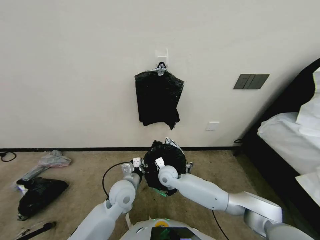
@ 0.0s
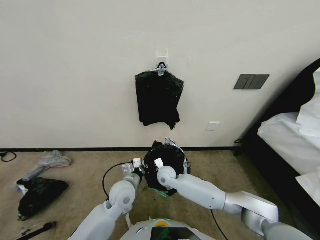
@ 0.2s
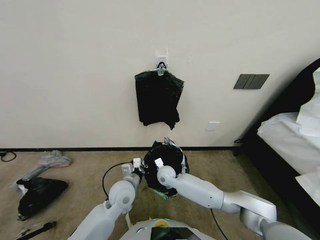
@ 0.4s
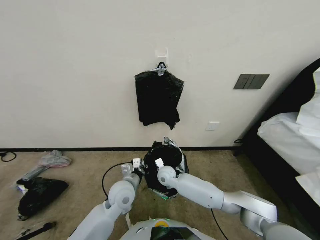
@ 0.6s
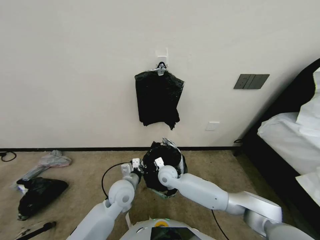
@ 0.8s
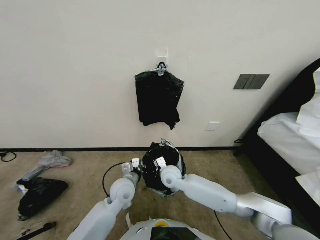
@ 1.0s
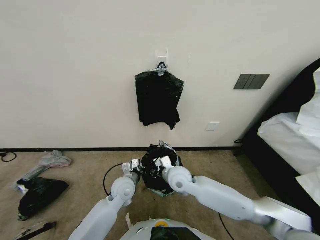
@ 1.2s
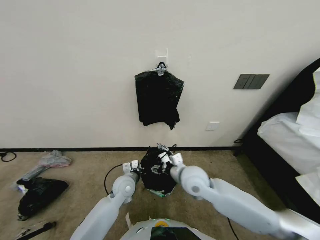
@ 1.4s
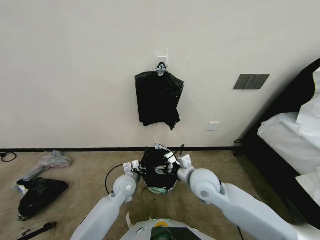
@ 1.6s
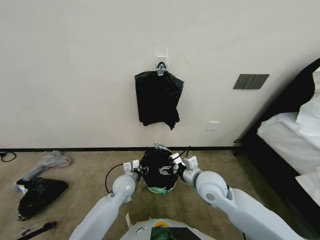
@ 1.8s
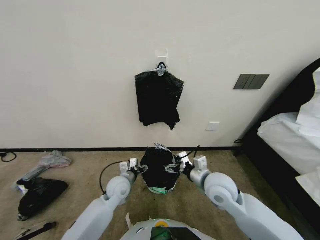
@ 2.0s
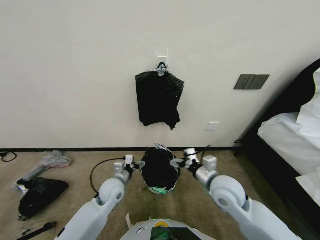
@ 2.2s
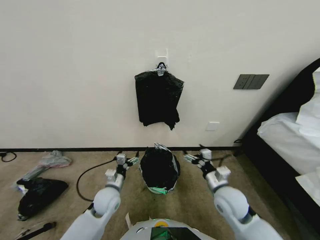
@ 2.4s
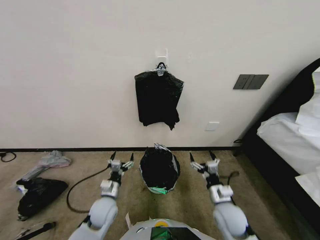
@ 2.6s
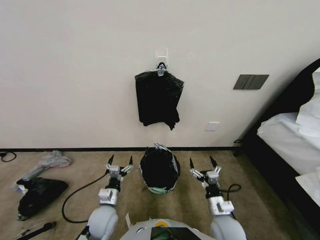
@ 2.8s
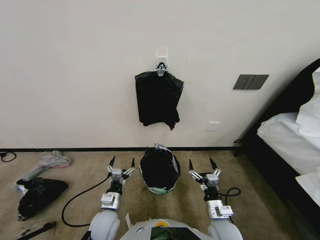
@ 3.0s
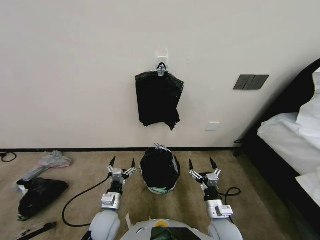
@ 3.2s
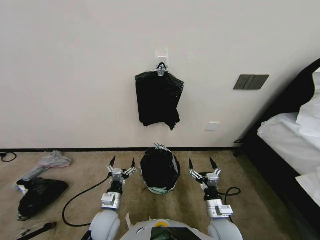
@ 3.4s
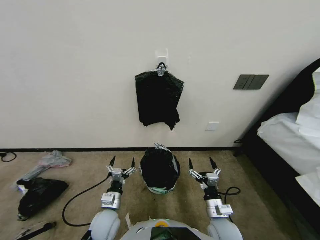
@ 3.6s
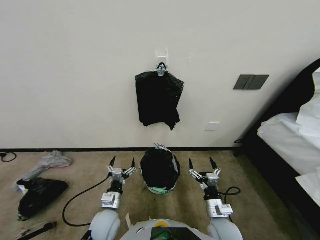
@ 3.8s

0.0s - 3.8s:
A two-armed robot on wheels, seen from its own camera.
Task of the whole recording: Place a trash bag onto the trash bin.
0.0s - 1.2s: The right gripper goes about 5 cm upward.
1.2s - 2.6s: The right gripper moves to the right and backward, about 20 cm, and opens its fingers. Meanwhile the left gripper heads to the left, covering some 5 cm, and opens.
2.6s - 3.8s: Both grippers travel together backward, roughly 5 cm.
